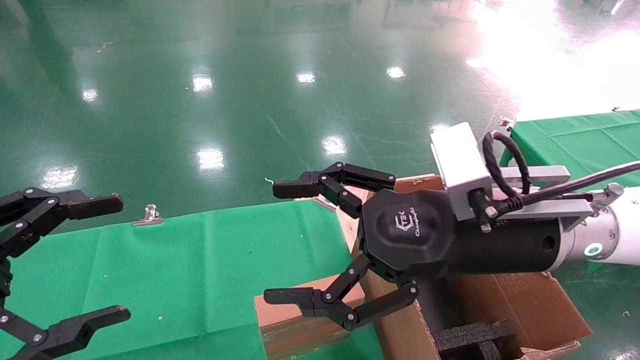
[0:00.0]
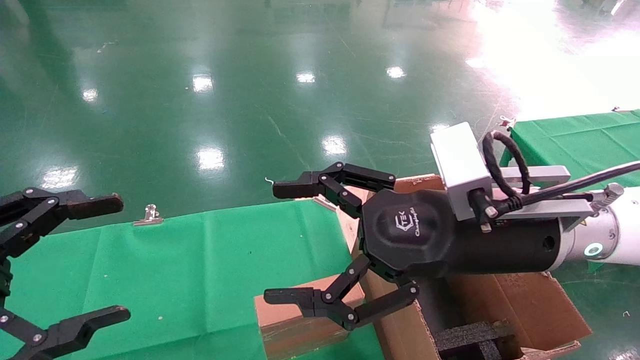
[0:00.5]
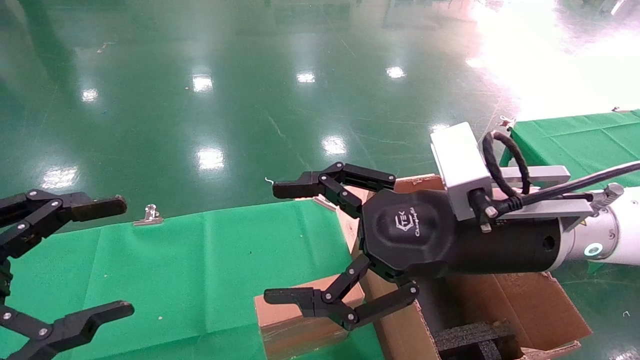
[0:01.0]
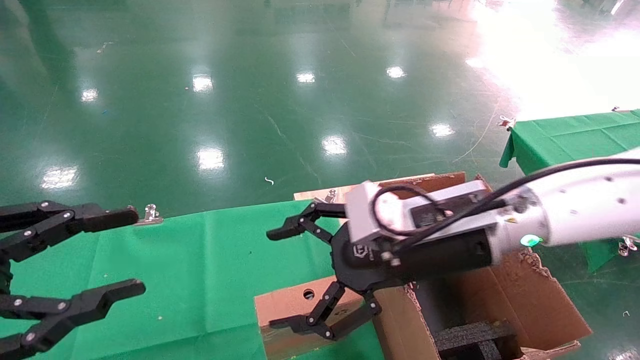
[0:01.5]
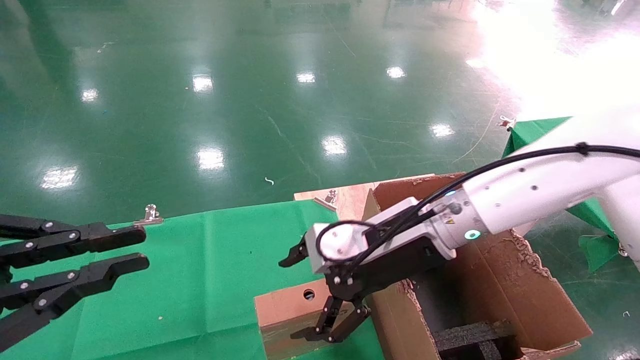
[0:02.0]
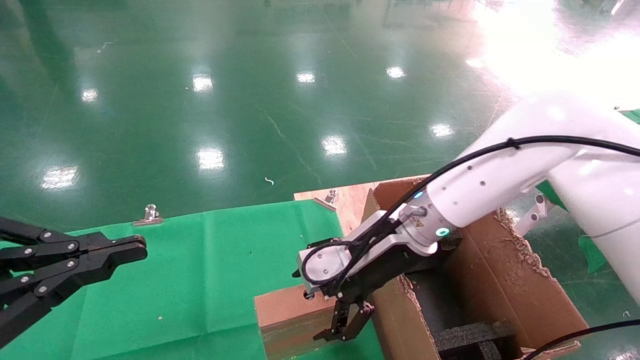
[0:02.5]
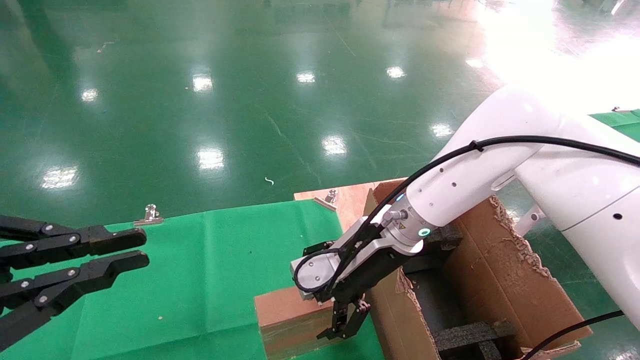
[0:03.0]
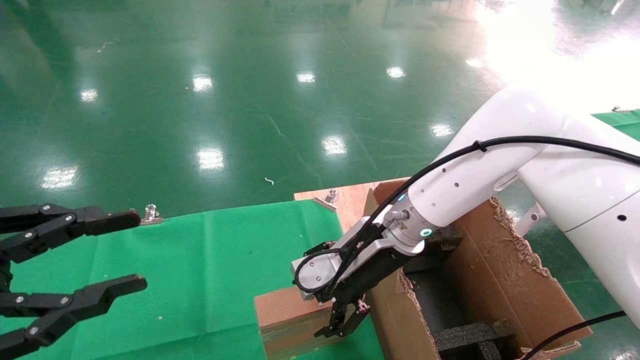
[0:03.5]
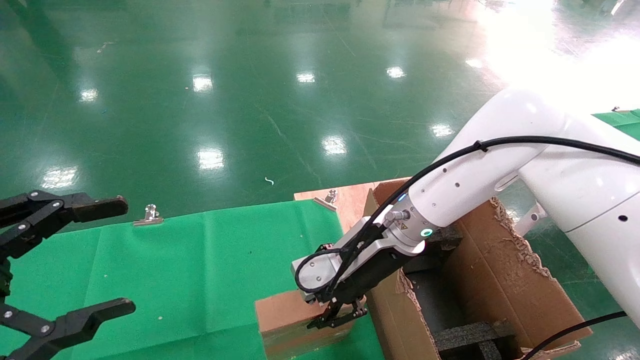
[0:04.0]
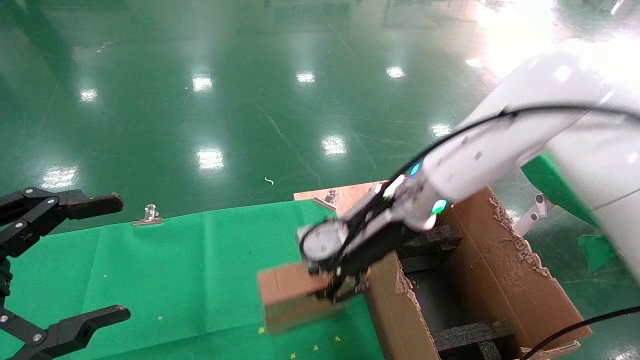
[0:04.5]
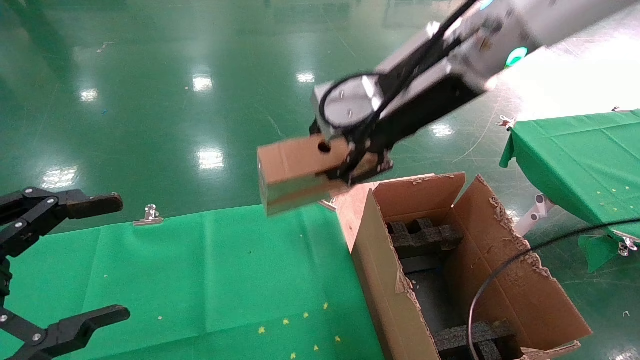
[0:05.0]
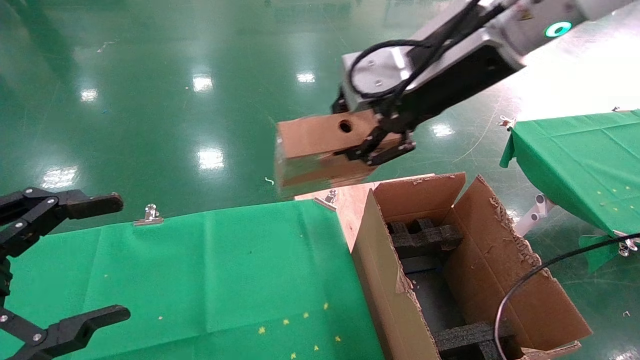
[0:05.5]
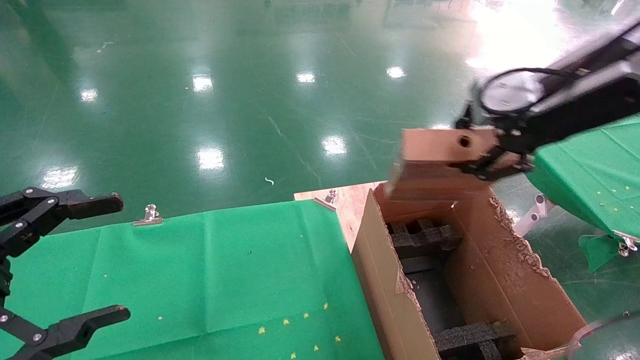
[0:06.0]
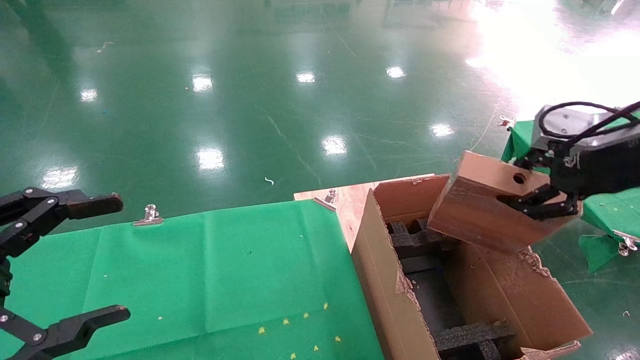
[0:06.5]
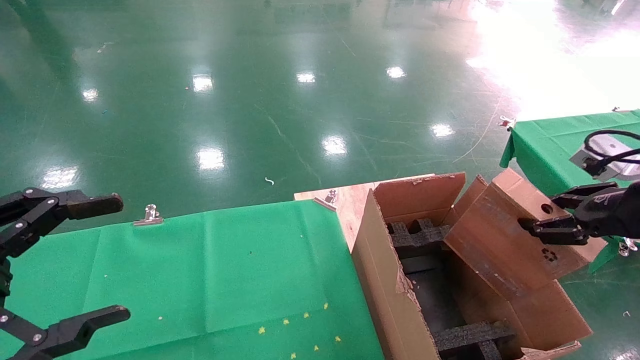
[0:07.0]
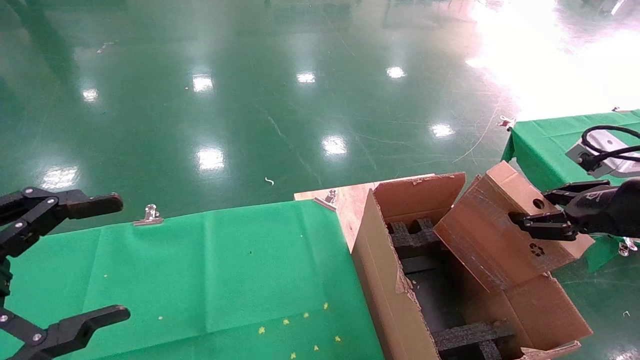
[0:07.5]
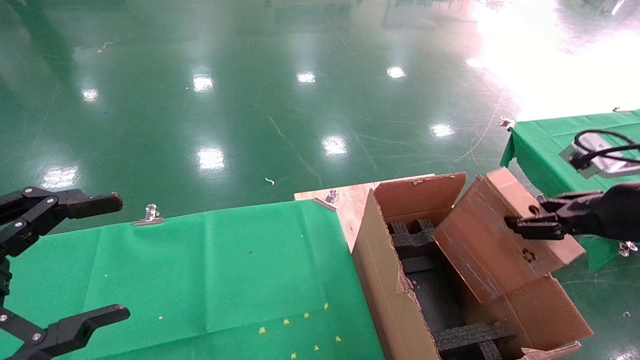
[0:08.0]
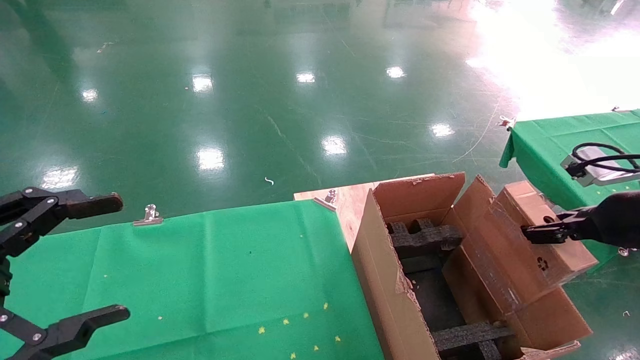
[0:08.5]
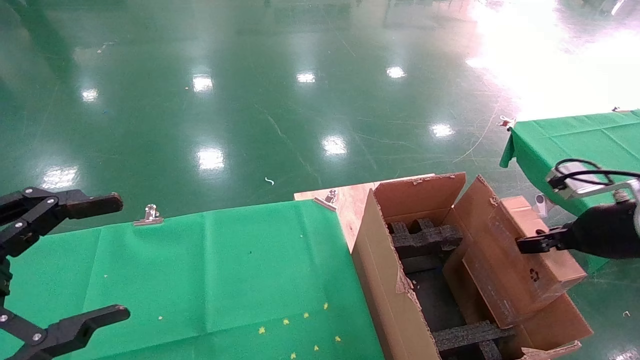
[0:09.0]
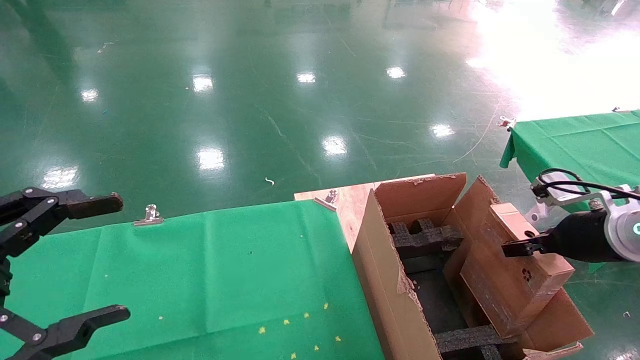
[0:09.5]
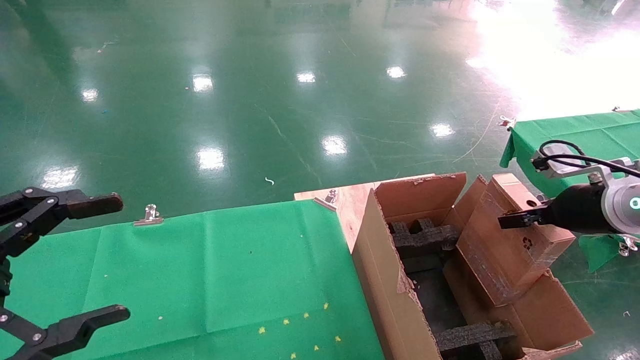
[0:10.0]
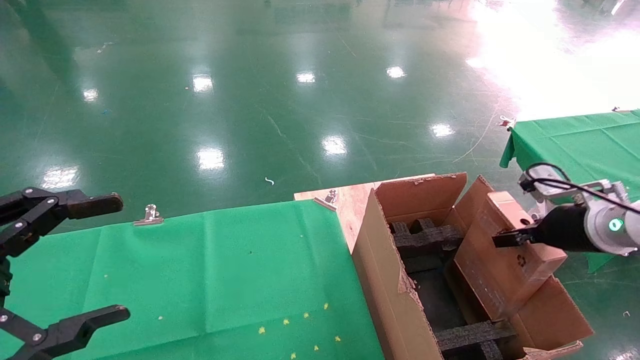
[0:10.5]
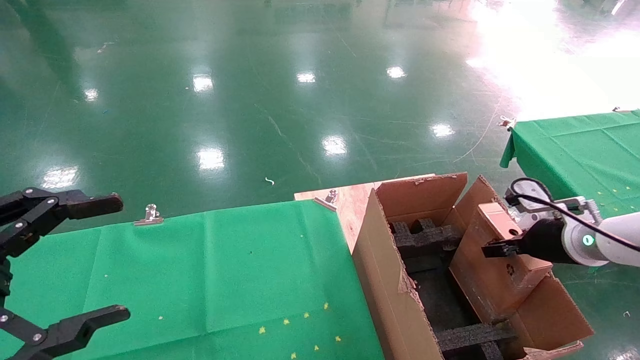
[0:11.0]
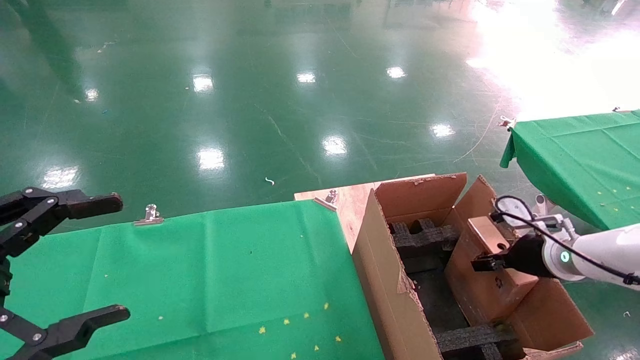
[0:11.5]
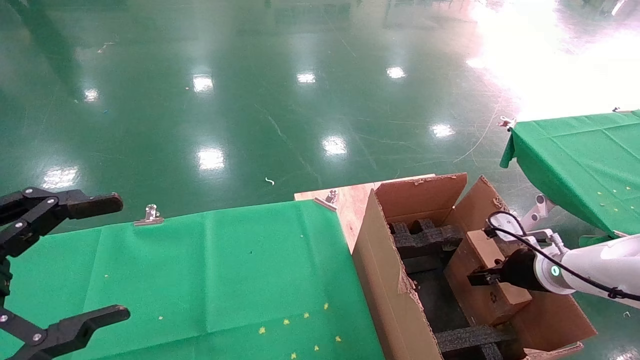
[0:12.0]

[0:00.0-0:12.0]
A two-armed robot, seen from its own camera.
Task of the whole recording: using a robotic arm to pick up a cardboard box and palace it the carton.
Step, 0:01.5 to 0:04.0: Pick up the mouse and the power cord paper box.
0:00.0 to 0:02.0: The left gripper closes up, while the right gripper travels forward by about 10 cm.
0:02.0 to 0:04.0: The left gripper opens up. The right gripper shifts by about 5 cm, and closes its fingers.
0:04.0 to 0:06.0: The right gripper goes about 30 cm upward, to the right and backward, and closes up.
0:06.0 to 0:08.0: The right gripper heads downward and to the right, covering roughly 20 cm.
0:08.0 to 0:10.0: The right gripper goes some 10 cm forward.
0:10.0 to 0:12.0: The right gripper is displaced downward by about 15 cm.

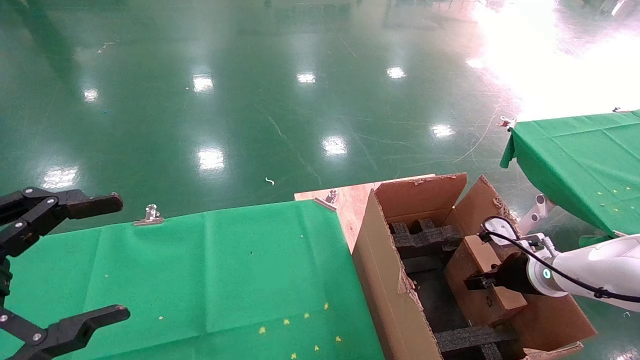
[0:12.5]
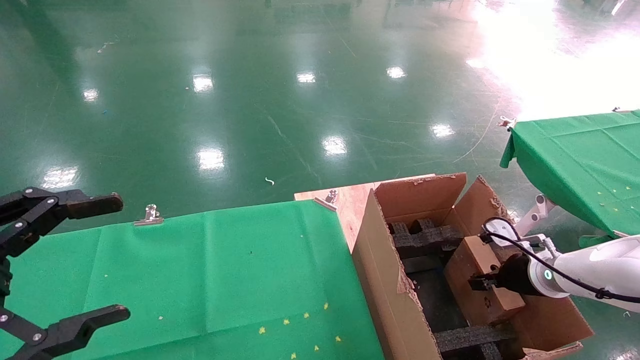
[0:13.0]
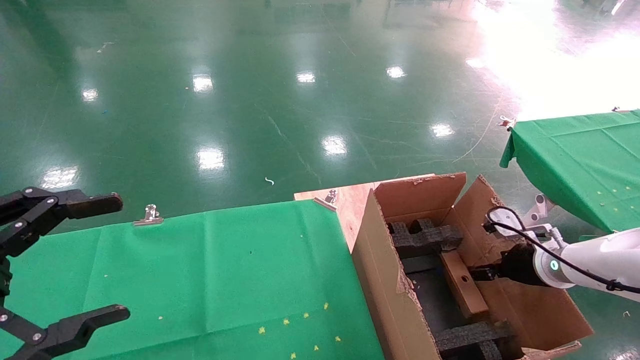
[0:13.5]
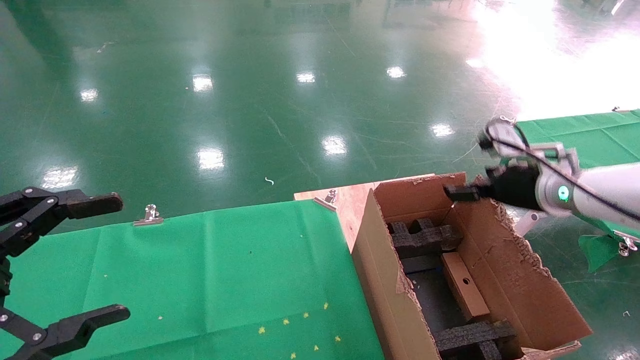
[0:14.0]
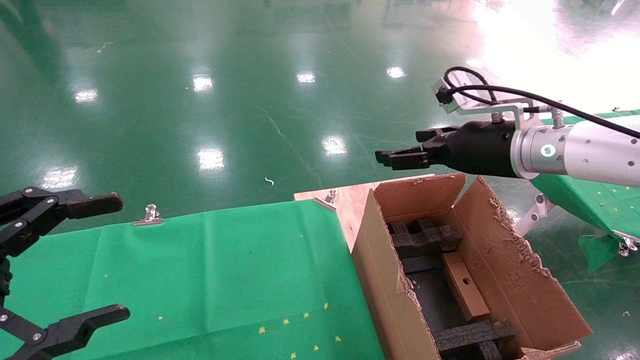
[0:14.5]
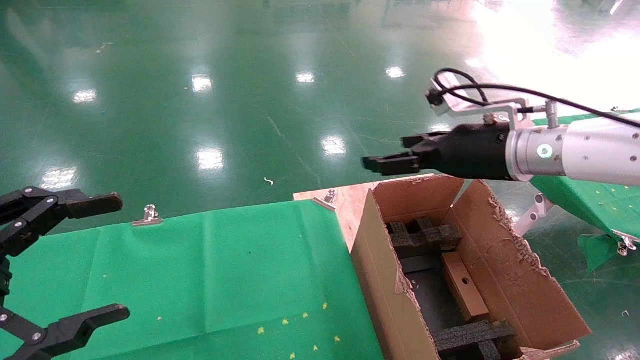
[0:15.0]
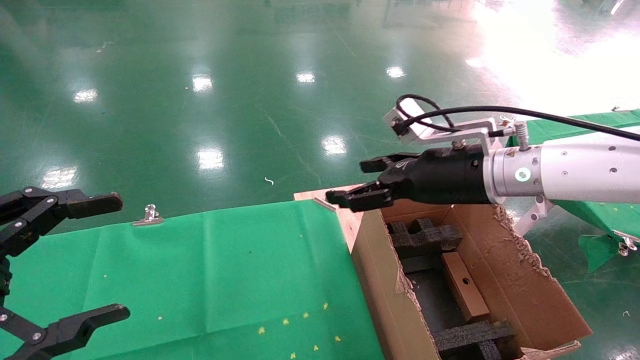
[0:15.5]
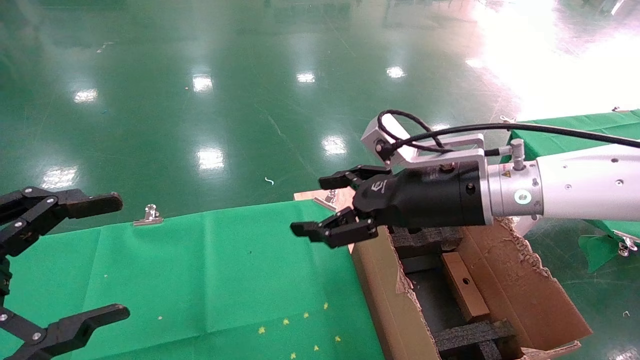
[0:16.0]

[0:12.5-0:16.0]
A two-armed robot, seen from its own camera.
Task of the whole recording: using a robotic arm to pick up a cardboard box and palace it the carton.
0:12.5 to 0:14.5: The right gripper is displaced upward and to the left by roughly 25 cm, and opens its fingers.
0:14.5 to 0:16.0: The right gripper shifts about 10 cm to the left.
